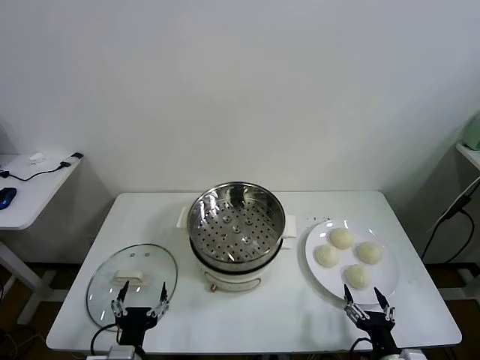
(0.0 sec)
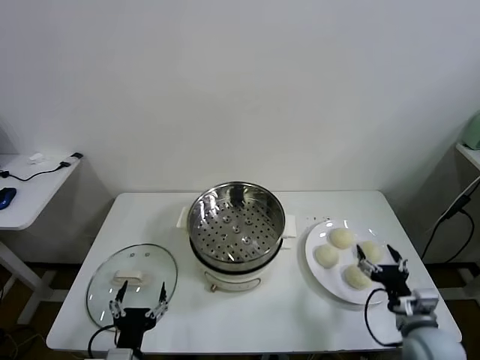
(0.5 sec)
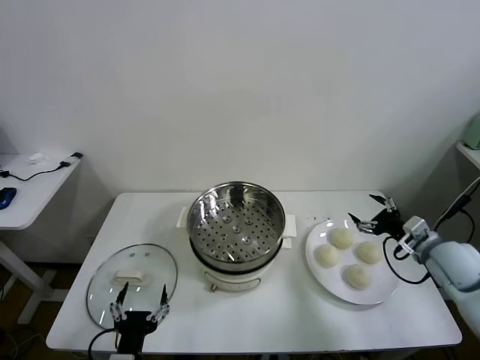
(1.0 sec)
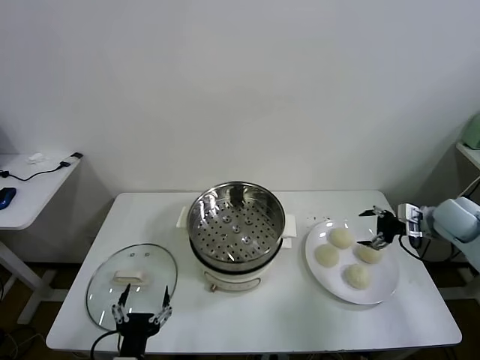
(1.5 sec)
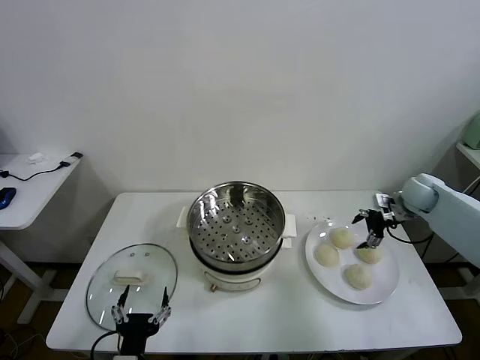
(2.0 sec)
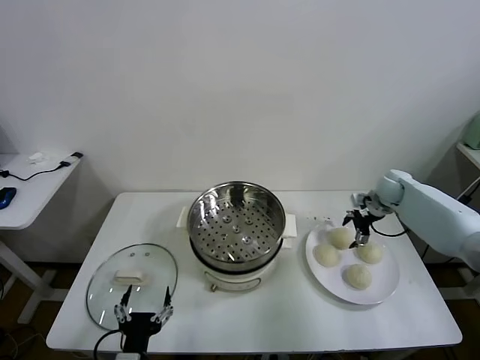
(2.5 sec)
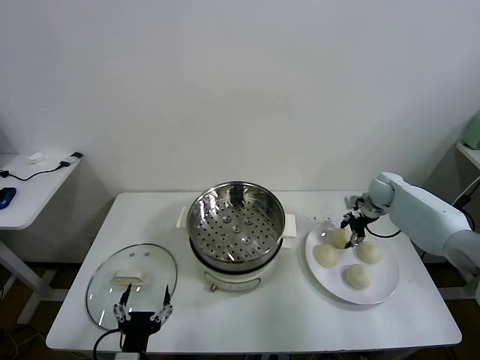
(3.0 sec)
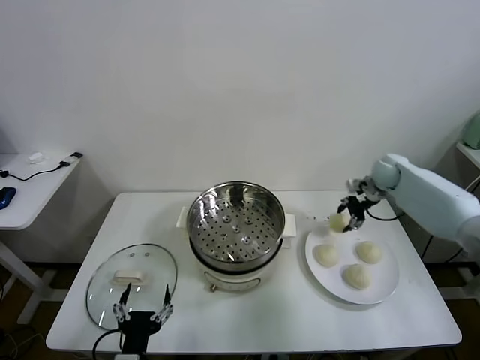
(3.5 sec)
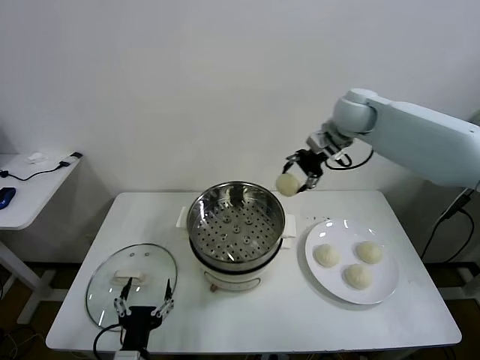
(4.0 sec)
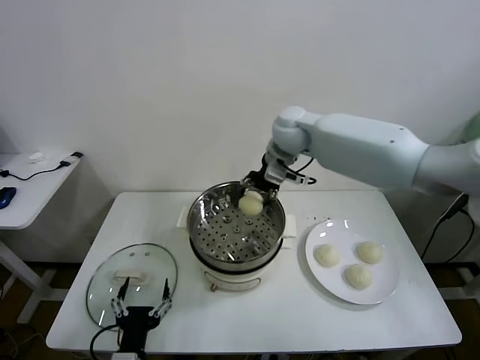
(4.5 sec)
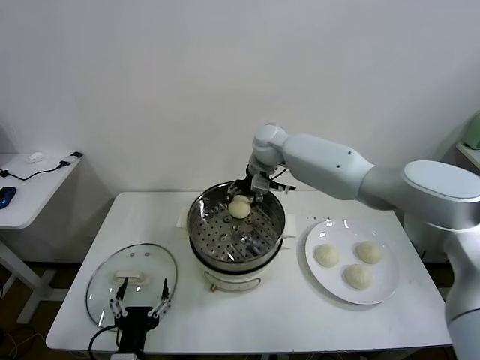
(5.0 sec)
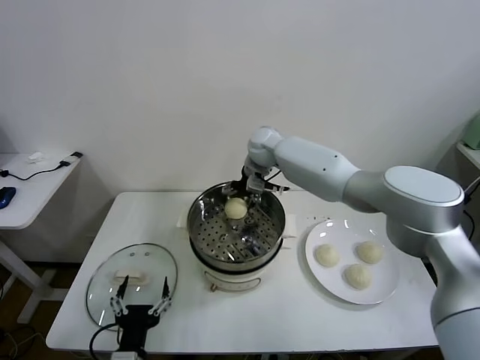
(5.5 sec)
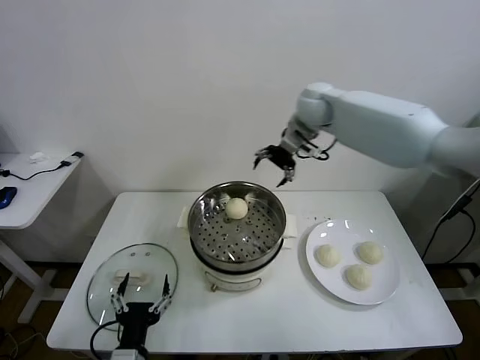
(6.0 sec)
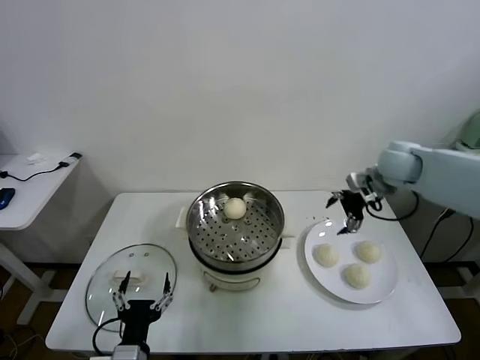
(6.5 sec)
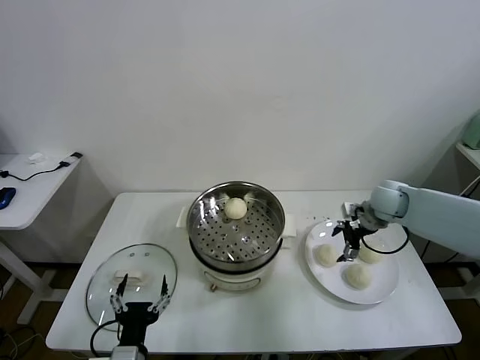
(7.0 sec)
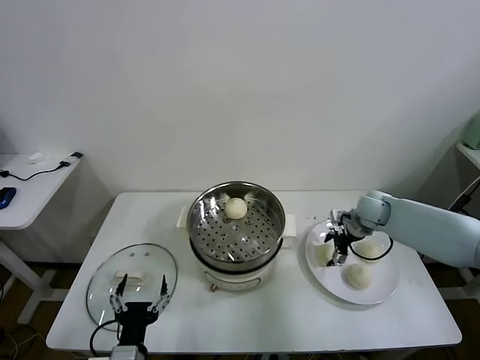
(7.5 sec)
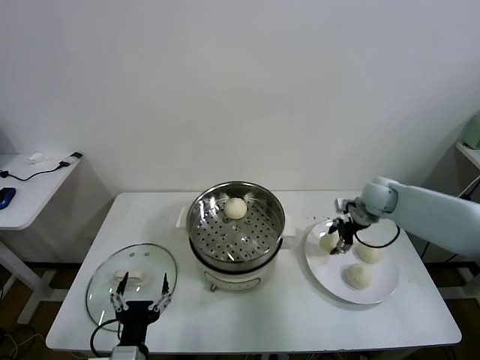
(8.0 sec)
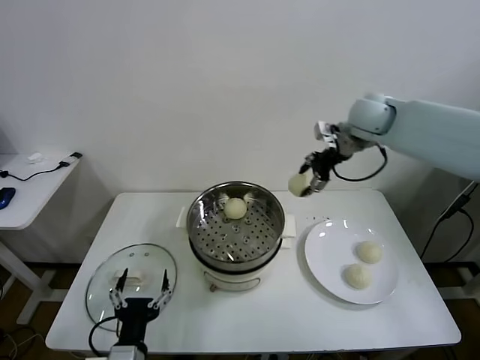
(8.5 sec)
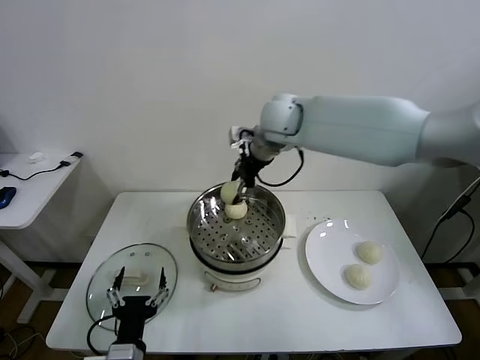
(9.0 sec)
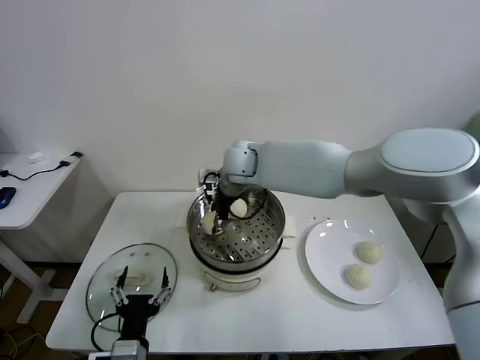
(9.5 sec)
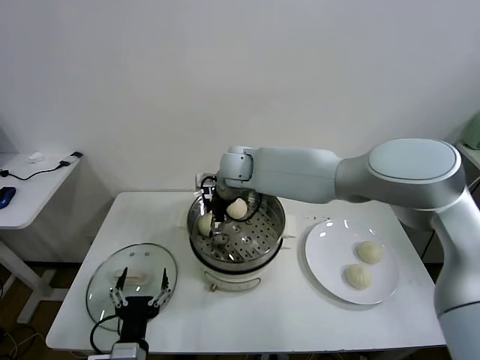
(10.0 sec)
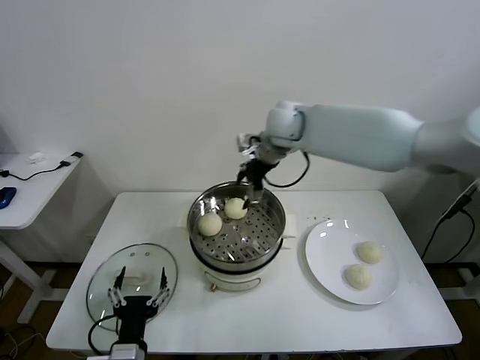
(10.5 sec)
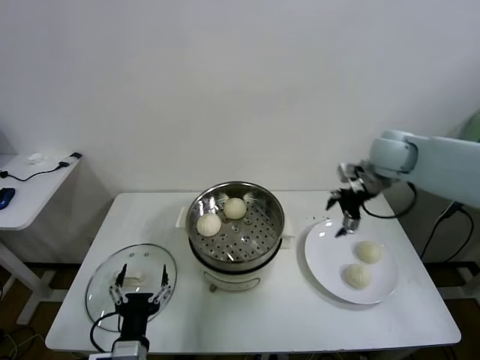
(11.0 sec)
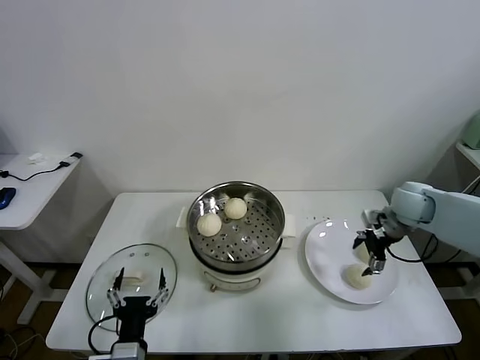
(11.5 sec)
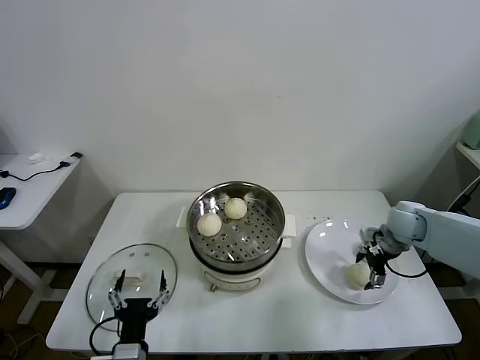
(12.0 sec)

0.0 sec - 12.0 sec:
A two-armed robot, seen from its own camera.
Task of the whole recording: take steamed baozi put them in steamer.
Step, 0.0 sec - 3.0 sec: Grasp the baozi in the plate with right gripper.
Step, 3.5 sec - 5.5 sec: Place the baozi on the steamer with right gripper.
Step, 6.0 sec - 7.5 sec: Grasp the baozi in the plate with right gripper.
Step, 8.0 sec - 10.0 sec: Place the baozi on the steamer with right gripper.
2.0 sec - 4.0 sec: The right gripper goes some 35 cm to the left and upward, and closes its fingers.
4.0 sec - 6.0 sec: The right gripper travels to the left and back again, about 15 cm each way, and opens its fingers.
6.0 sec - 8.0 sec: The right gripper moves downward and to the right, roughly 25 cm, and closes its fingers.
8.0 sec - 10.0 sec: The right gripper travels to the left by approximately 35 cm, and opens.
10.0 sec - 12.0 sec: The right gripper shifts some 40 cm to the right.

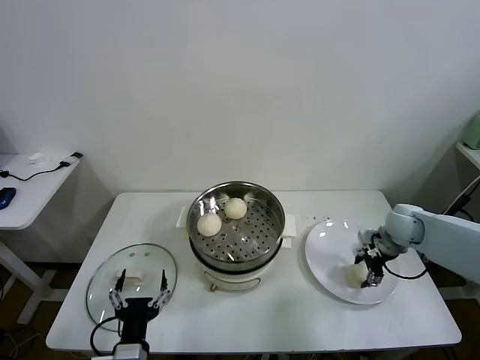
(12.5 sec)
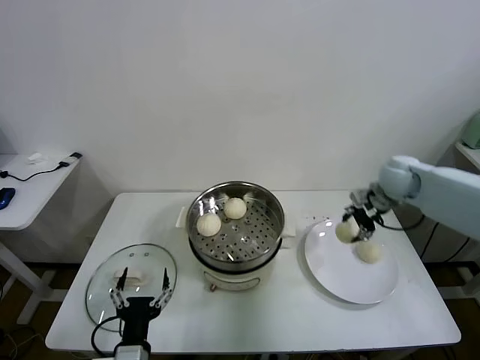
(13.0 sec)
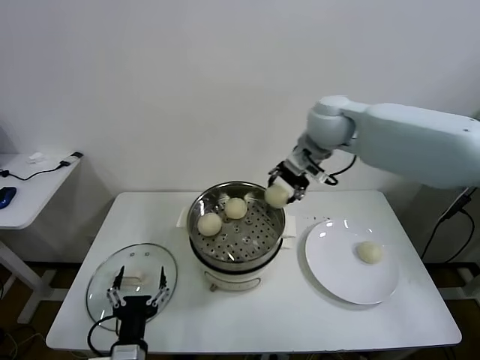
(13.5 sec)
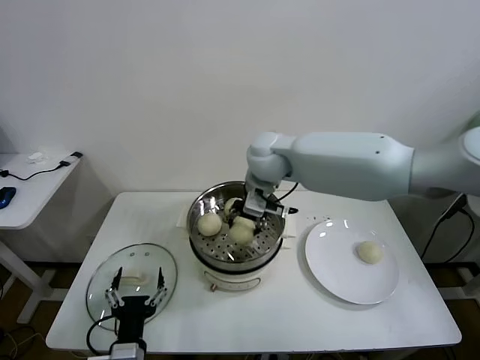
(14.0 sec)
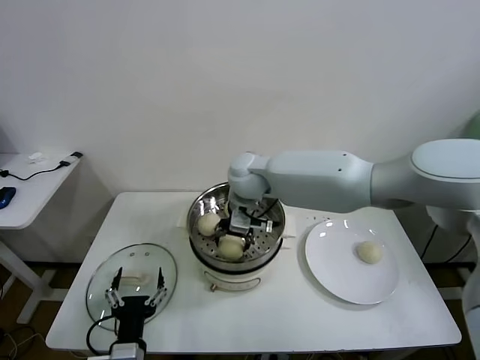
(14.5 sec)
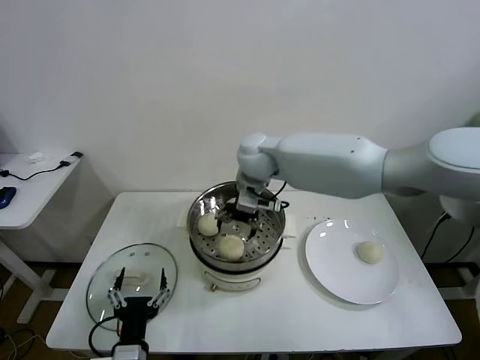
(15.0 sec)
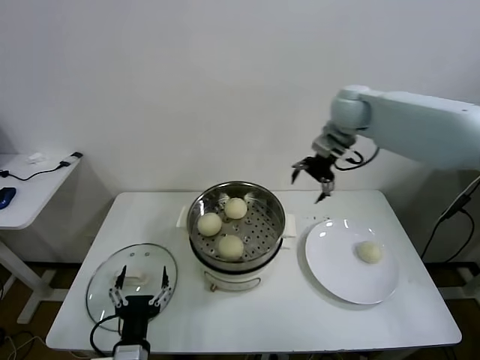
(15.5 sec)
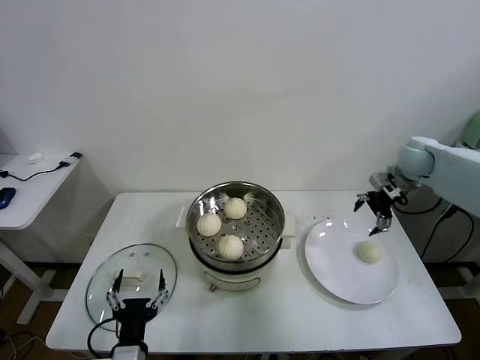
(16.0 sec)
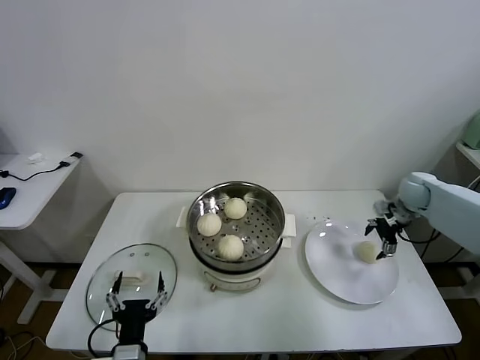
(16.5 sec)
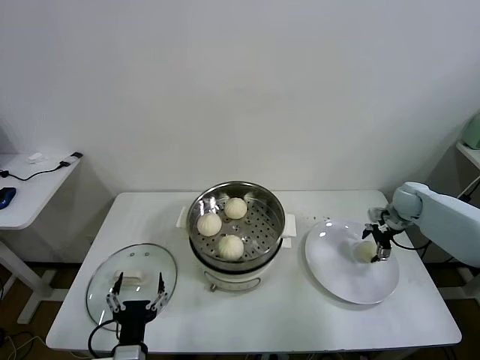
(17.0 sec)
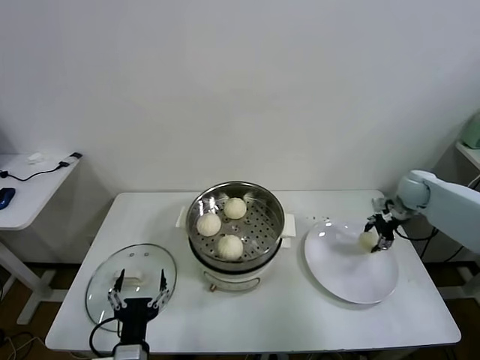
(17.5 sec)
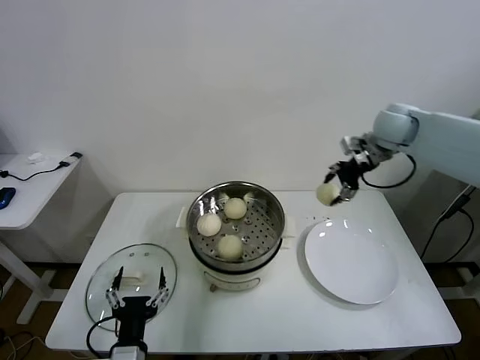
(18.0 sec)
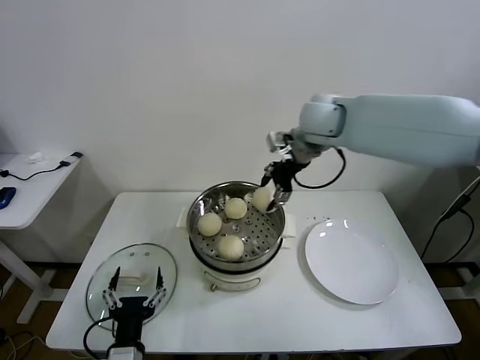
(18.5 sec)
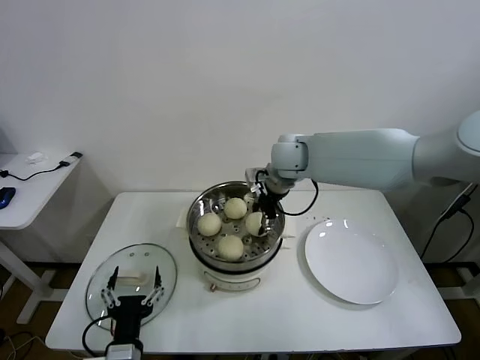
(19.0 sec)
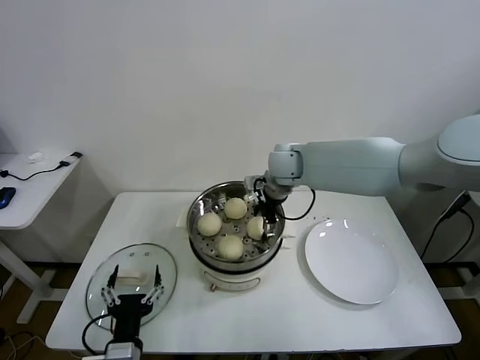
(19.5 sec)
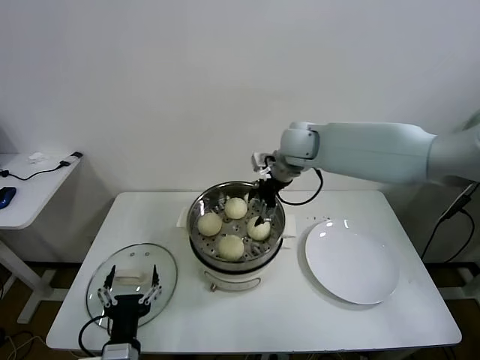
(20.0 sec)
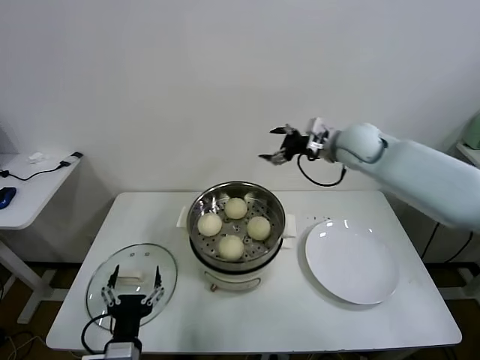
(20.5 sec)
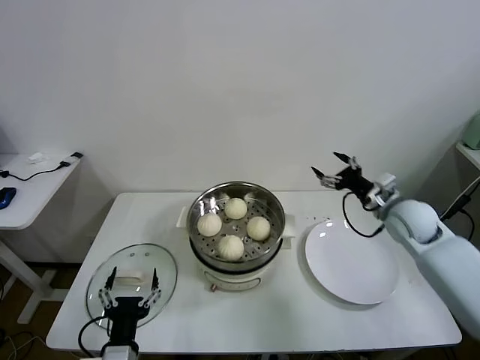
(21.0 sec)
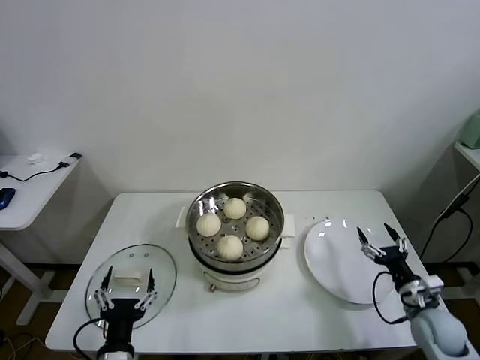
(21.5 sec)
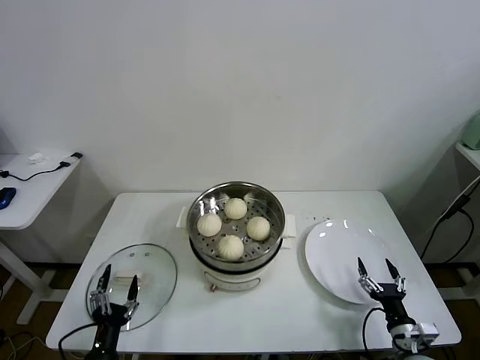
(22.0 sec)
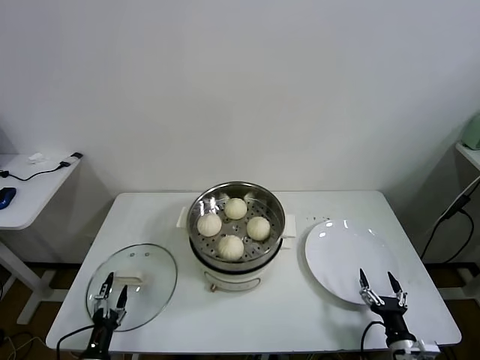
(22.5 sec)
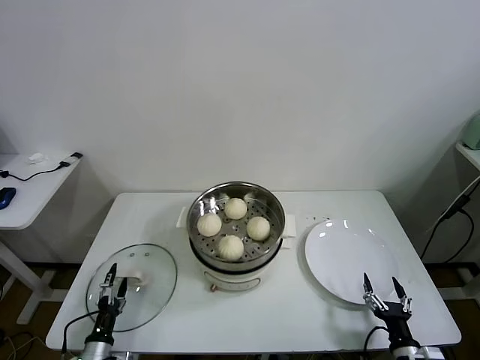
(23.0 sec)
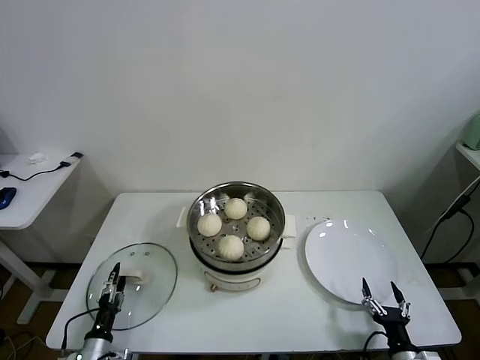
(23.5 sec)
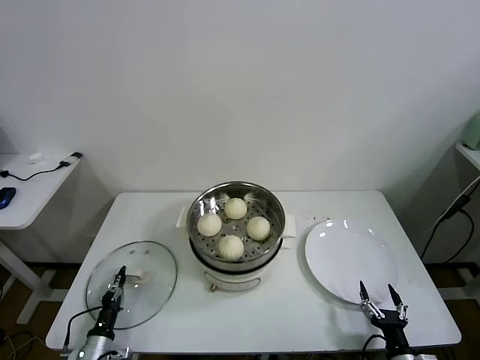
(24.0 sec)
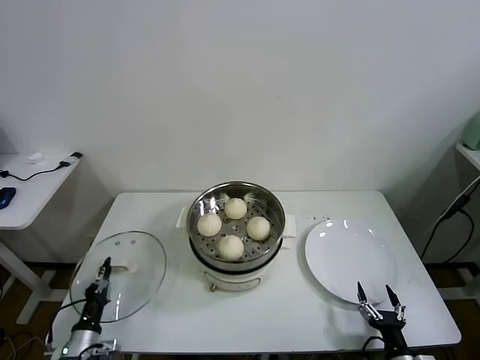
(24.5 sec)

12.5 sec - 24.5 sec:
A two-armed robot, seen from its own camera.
Task of the whole recording: take steamed baozi put them in steamer.
Step, 13.0 sec - 15.0 sec: Place the baozi on the steamer with right gripper.
Step, 15.5 sec - 17.0 sec: Grasp the baozi in the plate with right gripper.
Step, 17.5 sec - 19.5 sec: Place the baozi on the steamer with right gripper.
Step, 20.0 sec - 24.0 sec: Grasp the pot lid with left gripper.
12.5 sec - 14.5 sec: The right gripper heads to the left, covering about 40 cm, and opens.
14.5 sec - 16.5 sec: The right gripper moves to the right, about 40 cm.
16.5 sec - 18.5 sec: The right gripper is displaced to the left and upward by roughly 40 cm, and closes its fingers.
18.5 sec - 20.5 sec: The right gripper shifts approximately 15 cm to the right and downward, and opens.
20.5 sec - 22.5 sec: The right gripper travels backward and downward by roughly 50 cm, while the left gripper shifts about 20 cm downward and to the left.
22.5 sec - 24.5 sec: The left gripper heads forward, covering about 5 cm, and closes.

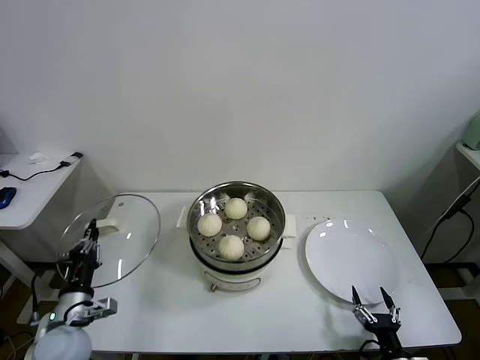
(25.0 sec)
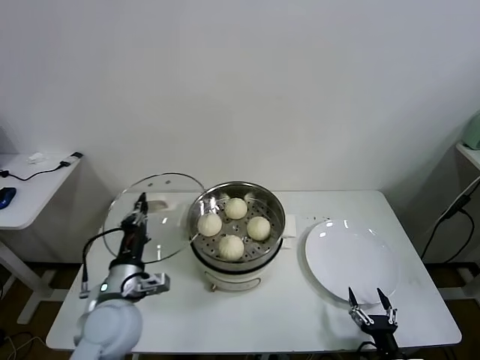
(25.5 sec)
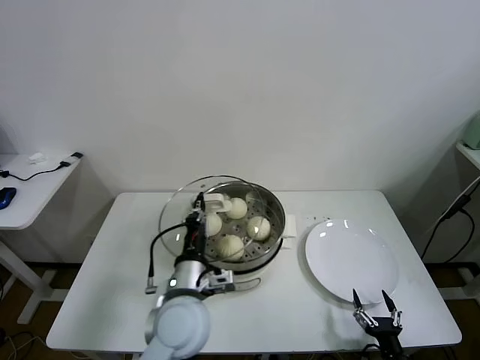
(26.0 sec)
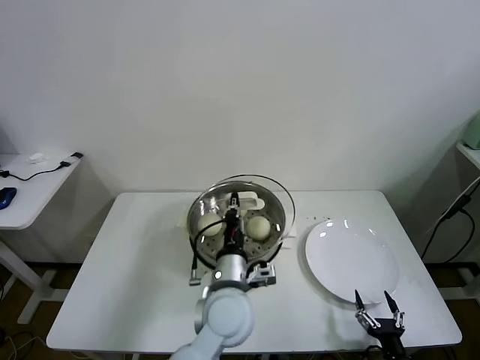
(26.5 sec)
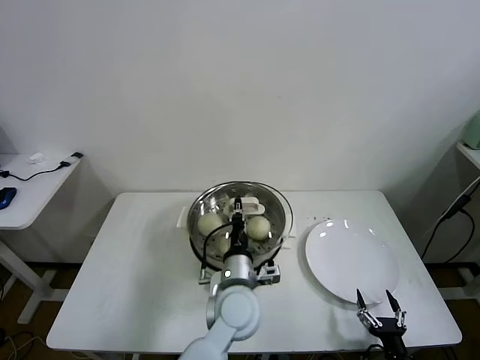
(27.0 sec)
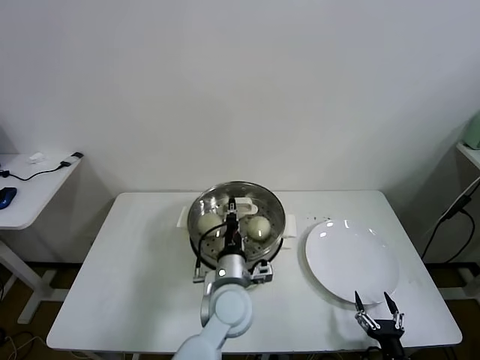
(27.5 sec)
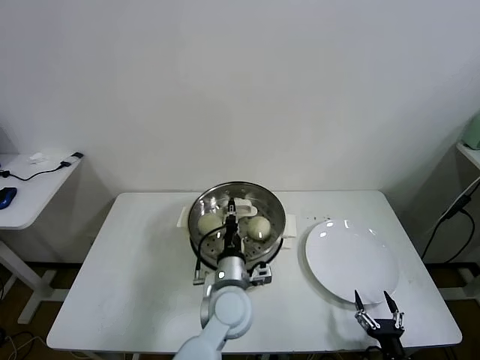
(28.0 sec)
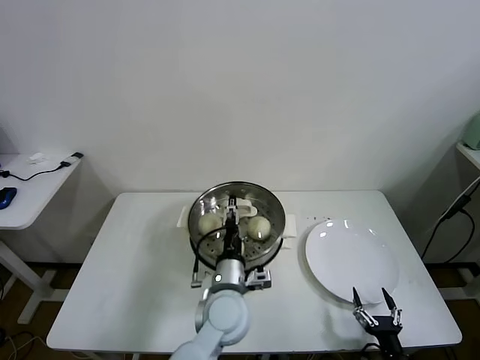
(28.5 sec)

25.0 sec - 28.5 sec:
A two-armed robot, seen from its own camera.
Task of the whole recording: take steamed baozi put them in steamer.
25.0 sec - 27.0 sec: The left gripper is displaced to the right by roughly 35 cm.
27.0 sec - 28.5 sec: The left gripper opens its fingers.
